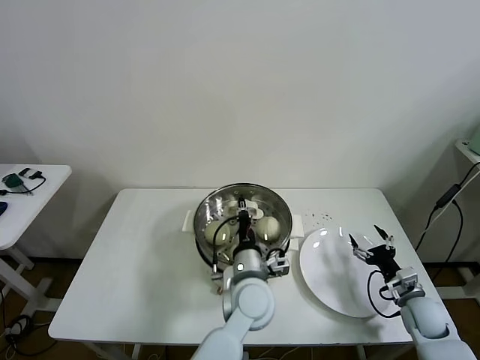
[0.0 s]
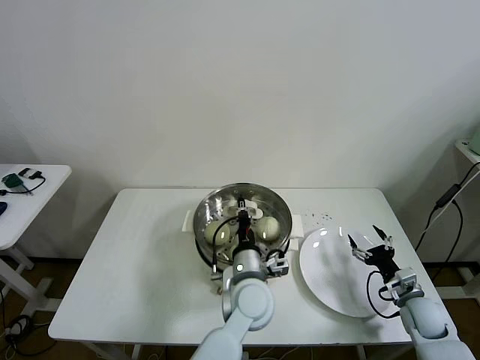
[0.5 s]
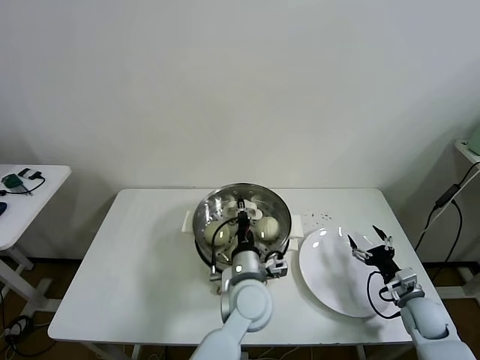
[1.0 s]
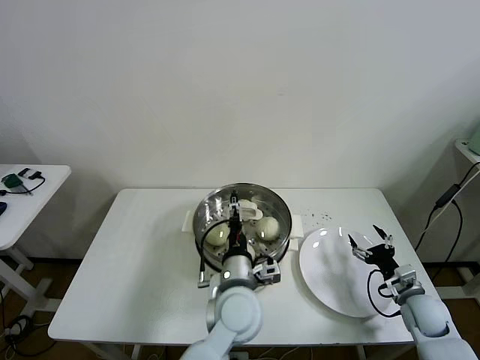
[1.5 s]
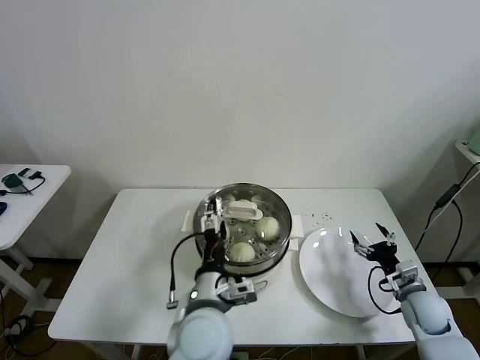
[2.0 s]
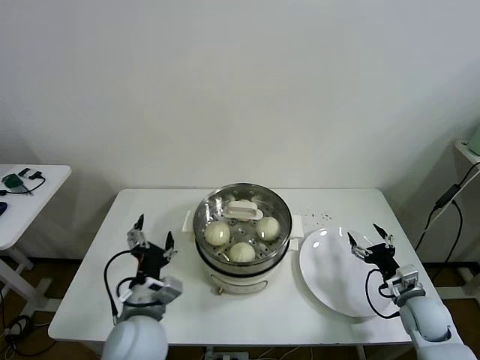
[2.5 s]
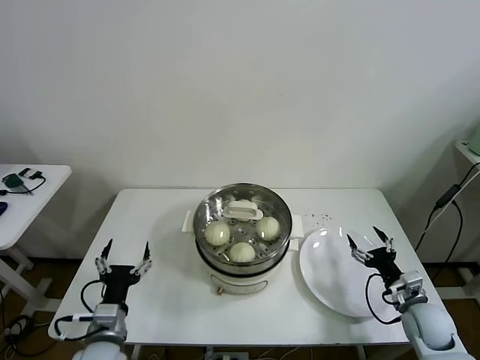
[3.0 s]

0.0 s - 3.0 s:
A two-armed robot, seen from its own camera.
Task of the whole recording: take steamed baozi put them in steamer then cover it.
0.0 s - 1.5 s: The left gripper opens its fingers.
1.5 s - 3.0 s: The left gripper heads to the left, covering roughly 25 cm, and opens up.
